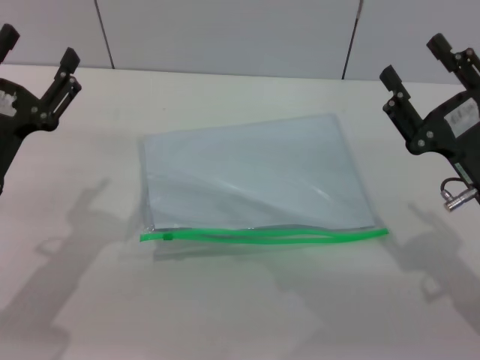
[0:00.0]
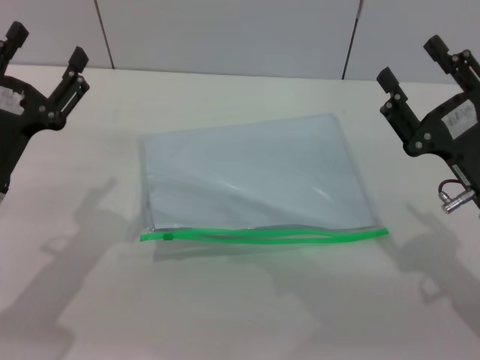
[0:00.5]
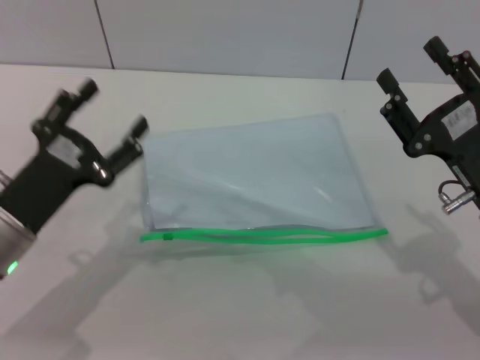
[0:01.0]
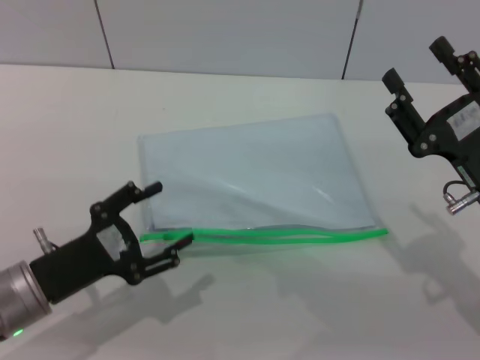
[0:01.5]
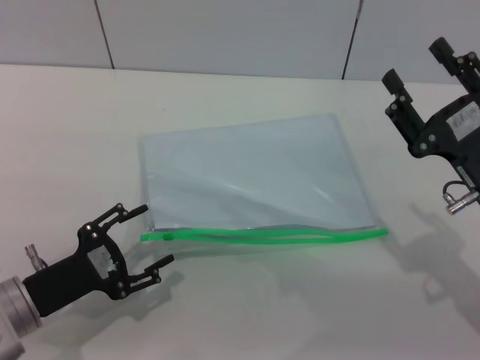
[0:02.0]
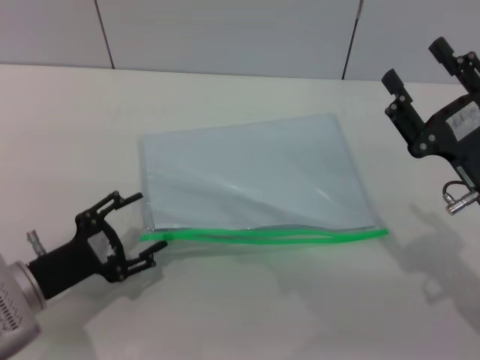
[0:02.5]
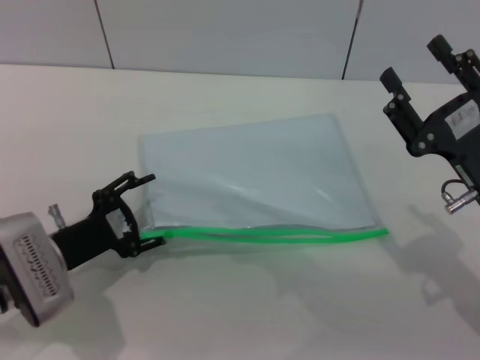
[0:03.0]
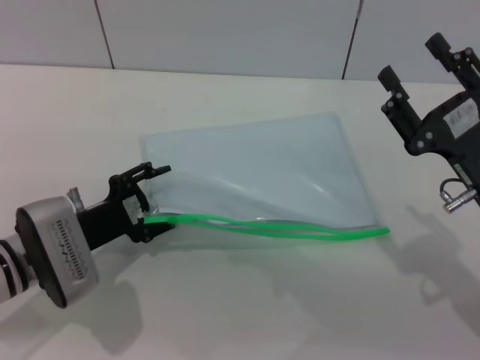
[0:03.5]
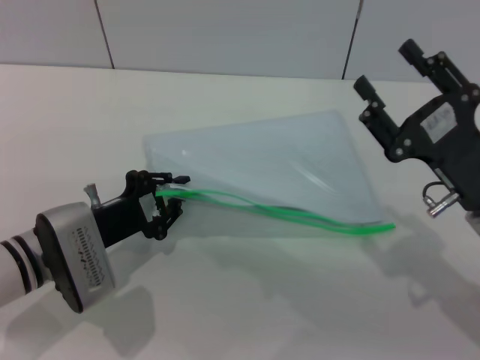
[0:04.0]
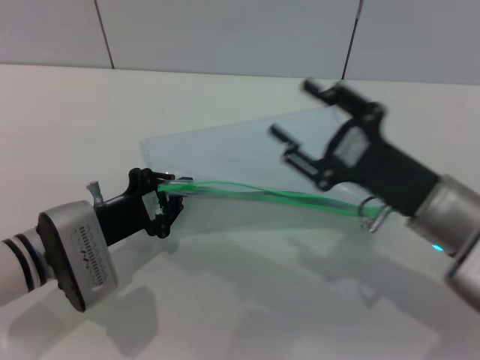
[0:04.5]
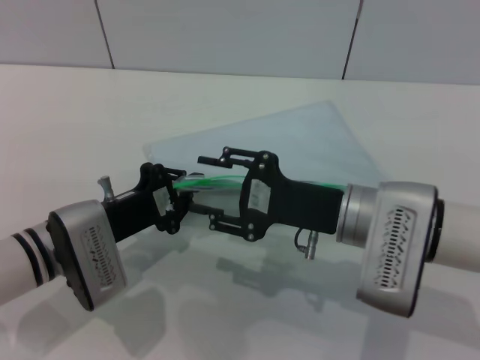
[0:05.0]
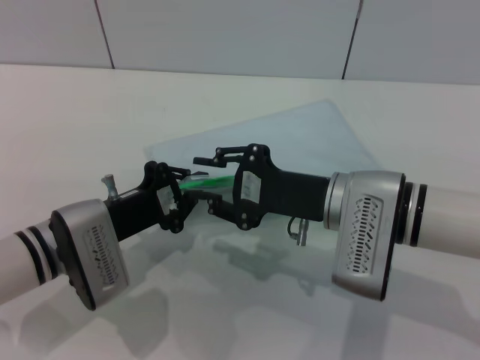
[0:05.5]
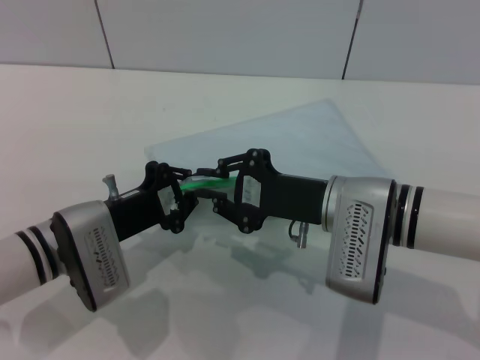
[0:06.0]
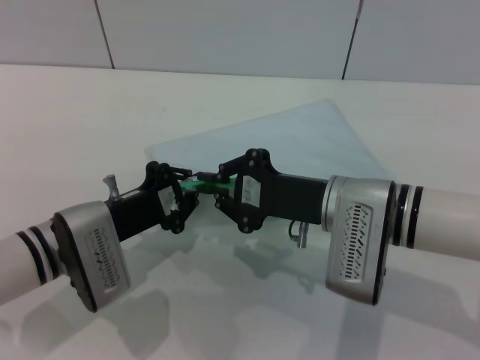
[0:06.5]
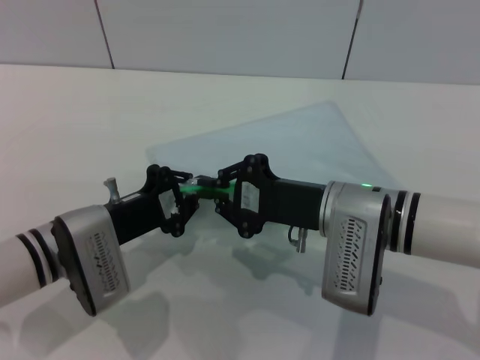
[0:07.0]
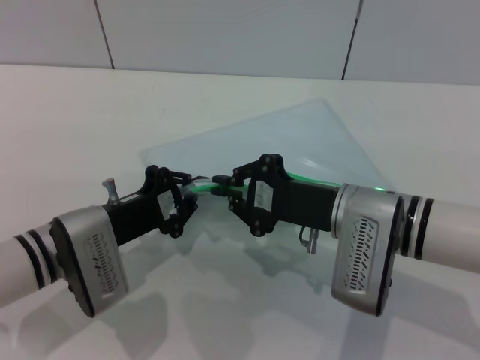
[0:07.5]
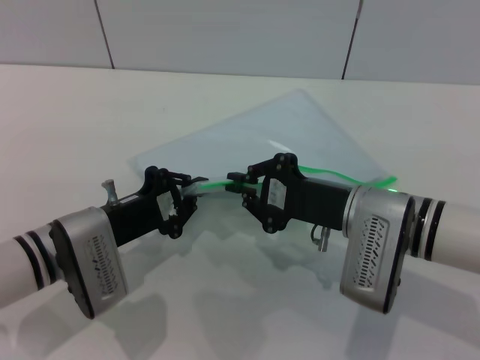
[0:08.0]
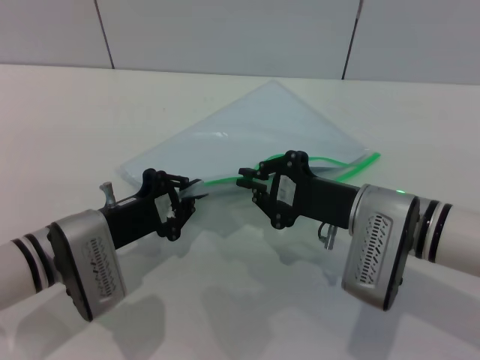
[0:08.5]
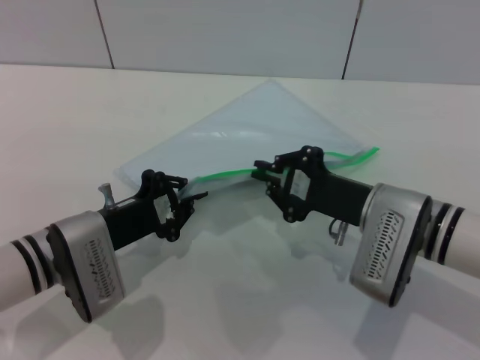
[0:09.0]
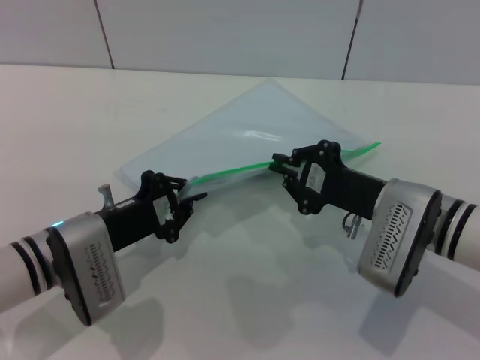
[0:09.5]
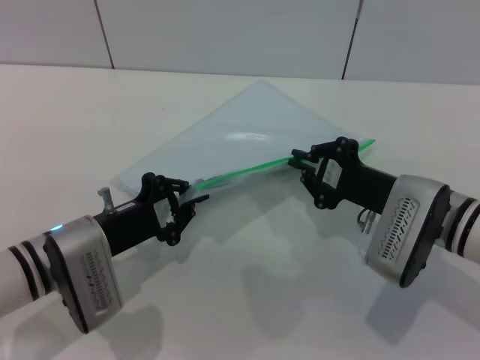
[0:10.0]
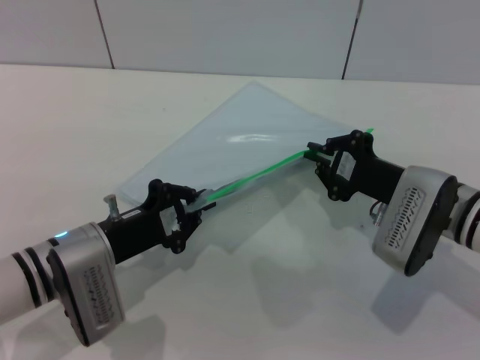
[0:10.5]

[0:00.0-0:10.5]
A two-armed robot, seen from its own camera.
Step, 0:00.0 to 0:04.5: Pick up the transparent plastic bag with the left gripper.
0:00.0 to 0:02.0: The left gripper is displaced downward and backward by about 10 cm.
0:02.0 to 0:04.0: The left gripper shifts roughly 10 cm forward, and closes up.
0:04.0 to 0:06.5: The right gripper is displaced to the left by about 10 cm, and closes its fingers. Meanwhile the left gripper closes.
0:06.5 to 0:08.5: There are only small adjustments of the grippers.
0:08.5 to 0:10.5: The right gripper travels to the right by approximately 5 cm.

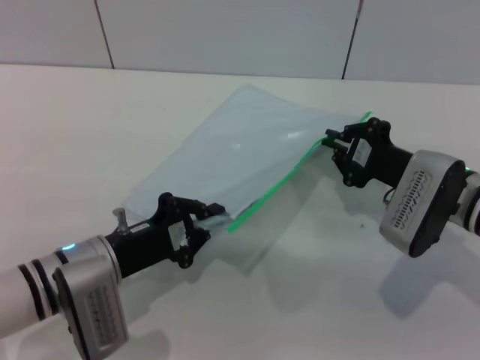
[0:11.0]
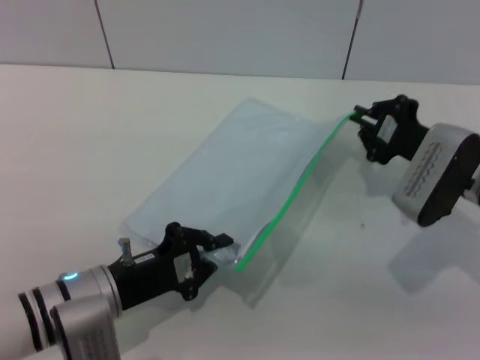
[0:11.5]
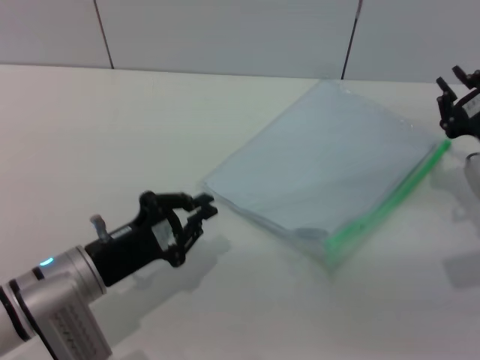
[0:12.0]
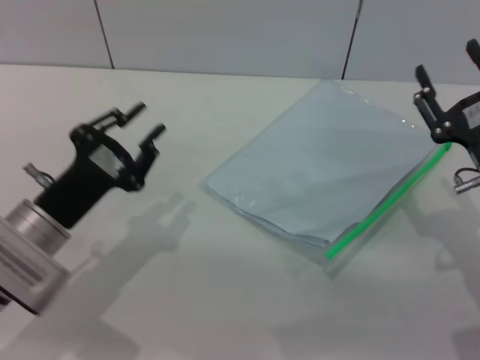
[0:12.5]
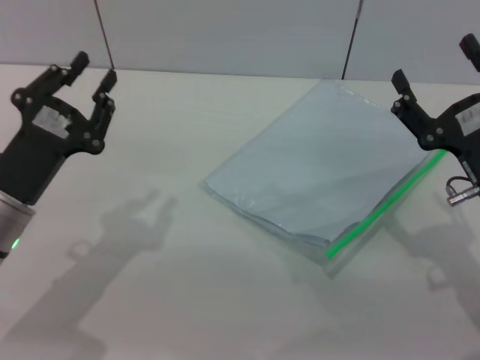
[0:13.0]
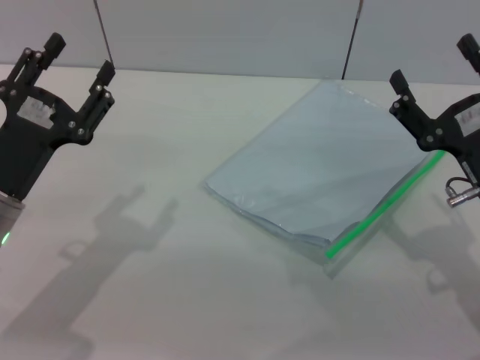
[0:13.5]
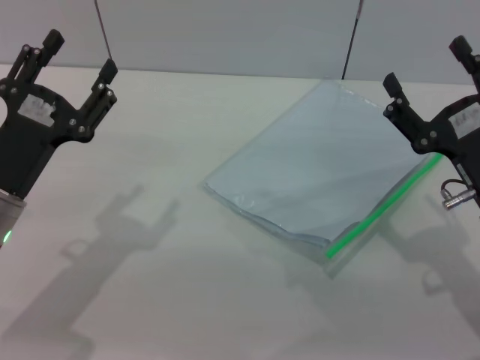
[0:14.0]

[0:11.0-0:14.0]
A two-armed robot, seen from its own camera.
Step, 0:12.0 to 0:12.5: Place the transparent plastic bag.
0:11.0 to 0:12.5: The left gripper opens its fingers, while the right gripper shifts about 5 cm backward, and opens its fingers.
0:12.5 to 0:14.0: The left gripper opens. The right gripper opens its fingers.
